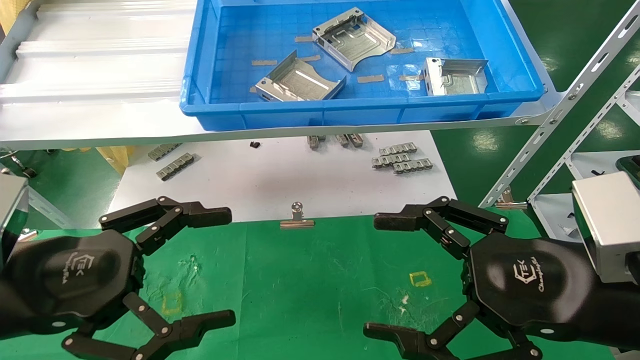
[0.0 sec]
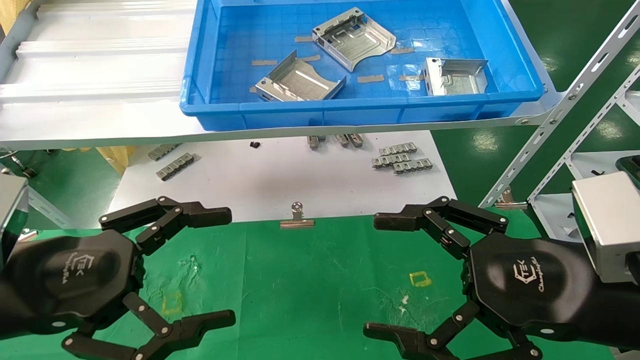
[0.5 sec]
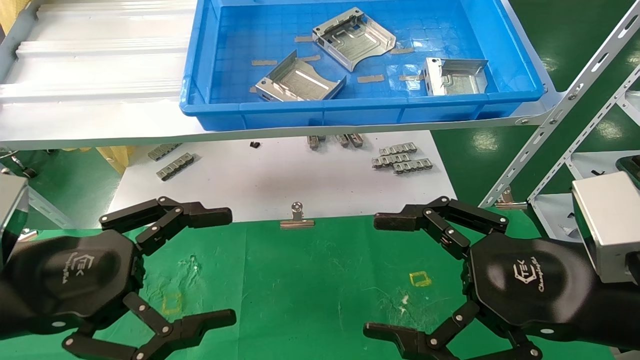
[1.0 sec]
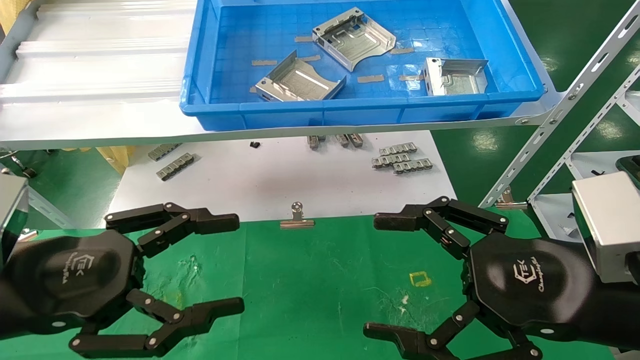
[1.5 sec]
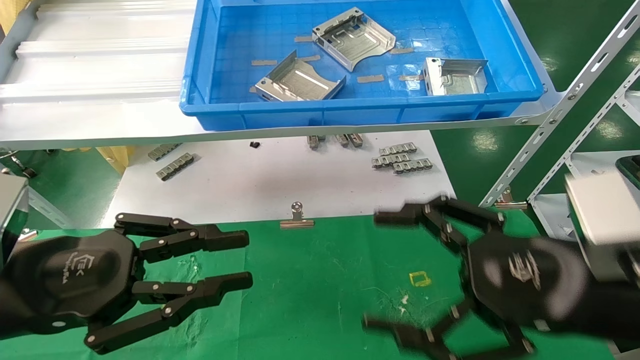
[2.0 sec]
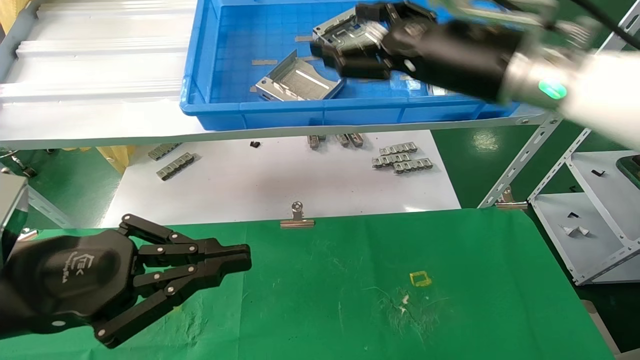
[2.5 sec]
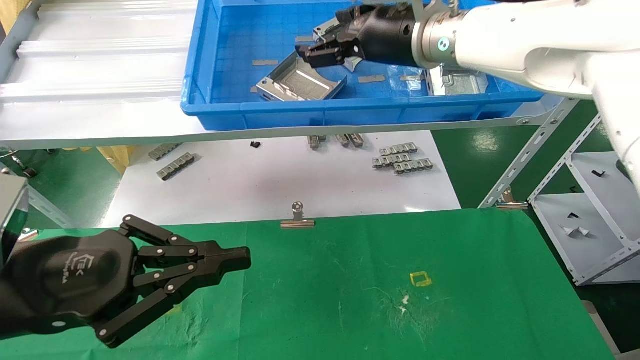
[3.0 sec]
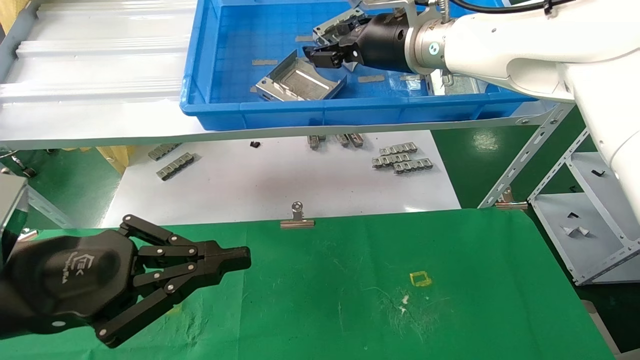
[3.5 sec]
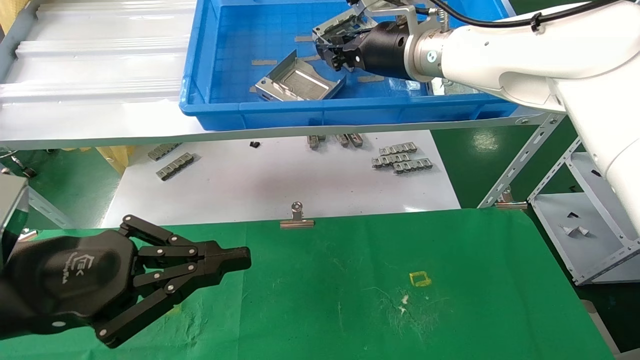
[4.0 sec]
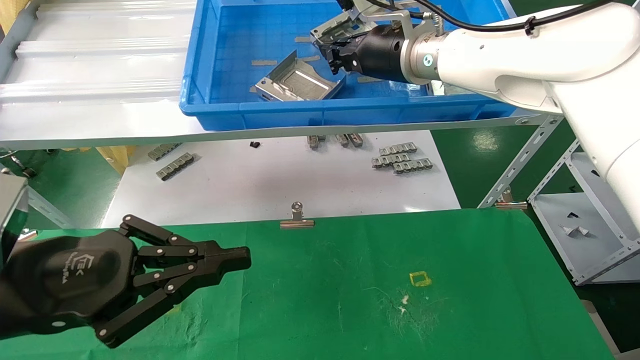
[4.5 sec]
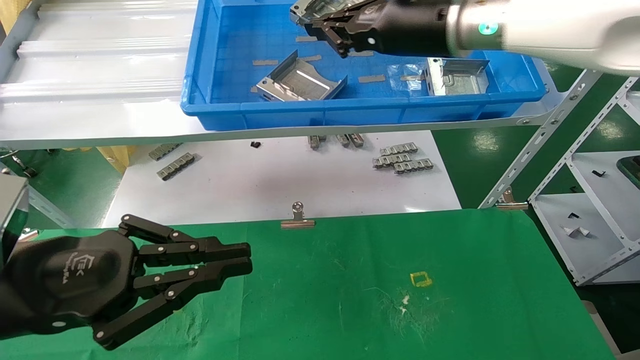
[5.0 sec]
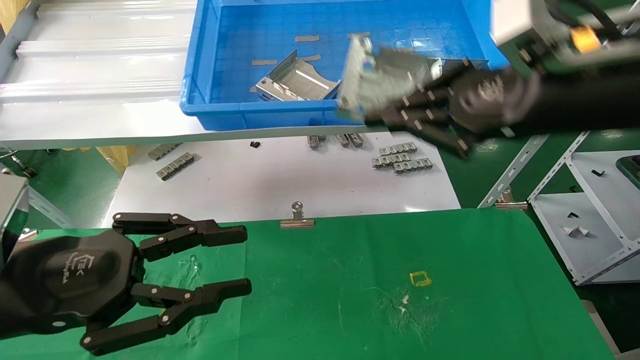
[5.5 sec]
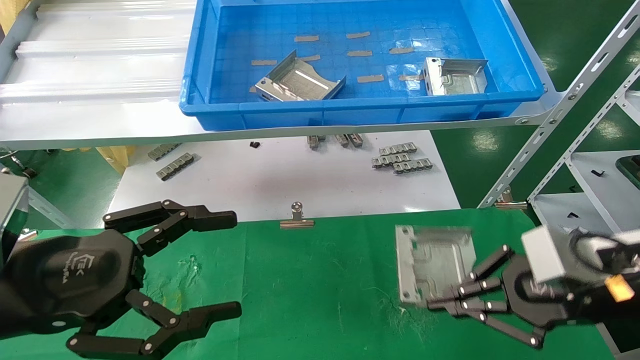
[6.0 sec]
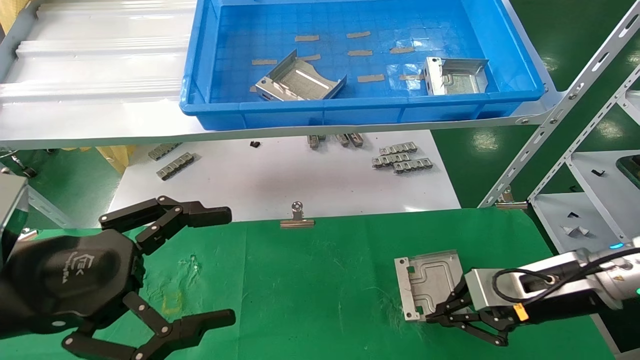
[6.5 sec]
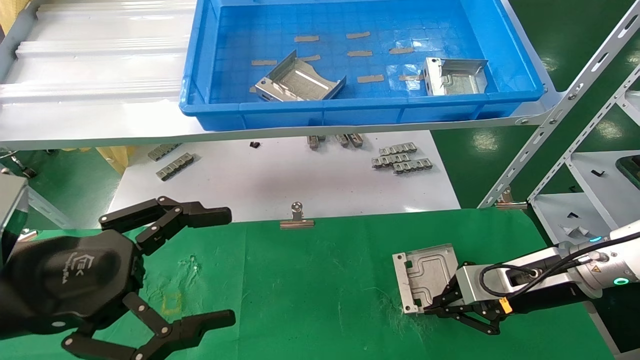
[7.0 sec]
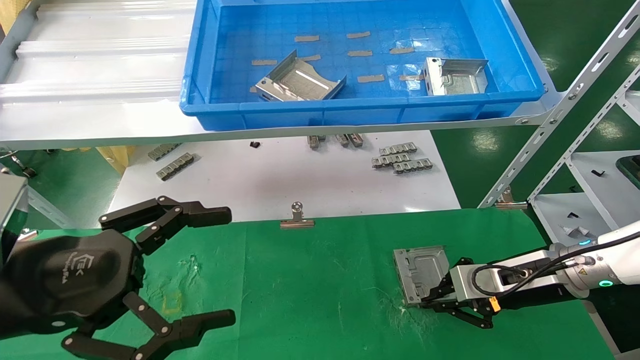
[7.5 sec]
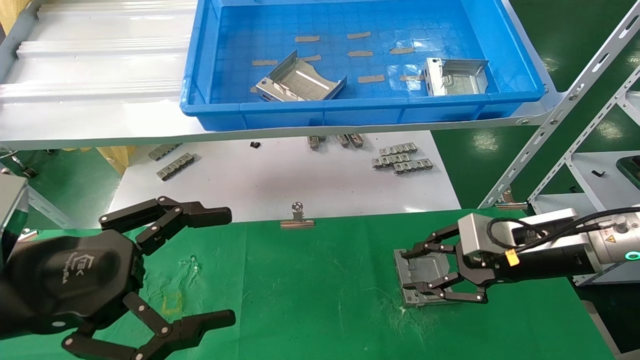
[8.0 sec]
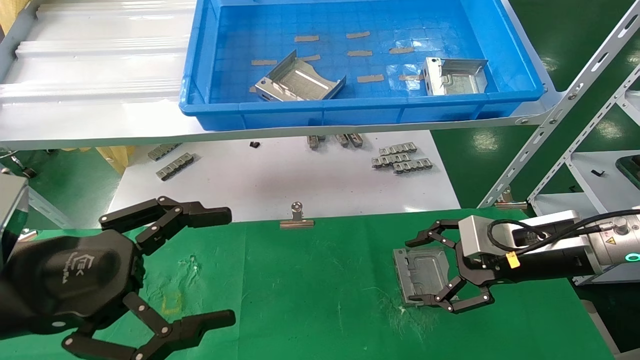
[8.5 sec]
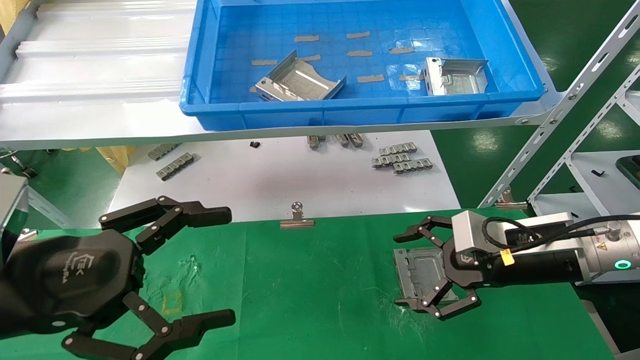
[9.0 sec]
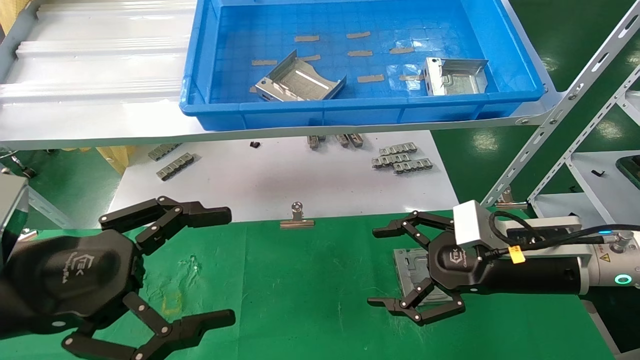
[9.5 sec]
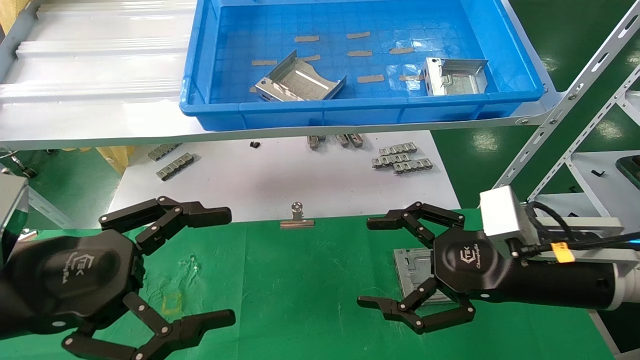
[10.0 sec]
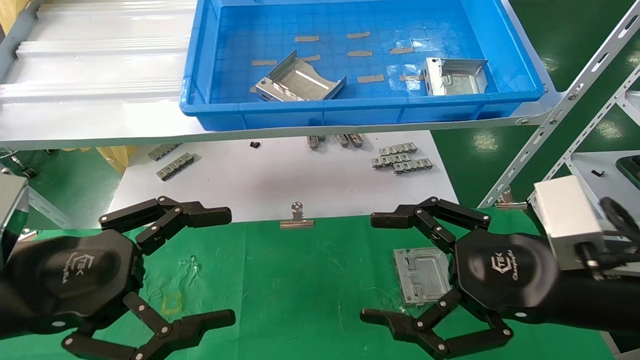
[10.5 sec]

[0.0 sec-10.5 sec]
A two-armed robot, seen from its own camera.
Task of the whole recording: use the mechanical arm to pick up the parts and place them on the table.
Step, 2.0 sec to 5.5 sec: Pick up the hard drive bracket from the feeding area.
Step, 6.0 sec to 8.5 sec: Place the hard drive bracket into the box.
0.0 sec to 2.0 sec: The left gripper closes up.
2.0 sec to 4.0 sec: The right gripper heads forward, upward and to the left, covering approximately 30 cm, and closes; the left gripper closes its fingers.
4.0 sec to 6.5 sec: The right gripper goes some 35 cm downward, to the right and backward. Meanwhile the left gripper opens.
6.5 sec to 8.5 sec: The right gripper opens its fingers.
8.5 sec to 10.5 sec: The right gripper heads backward, covering roughly 10 cm.
